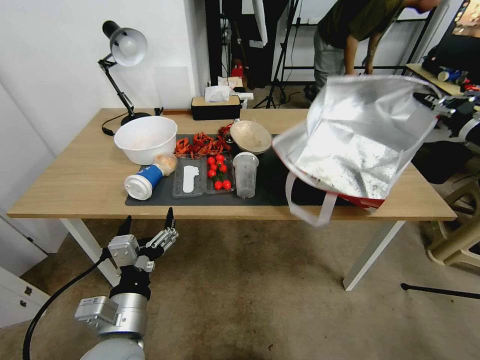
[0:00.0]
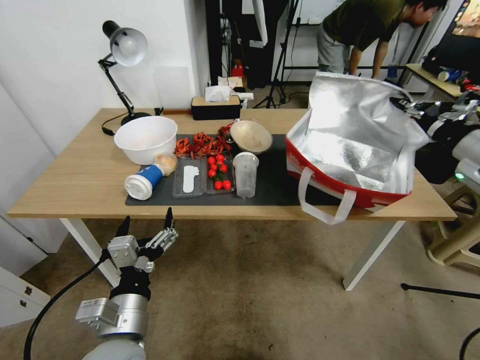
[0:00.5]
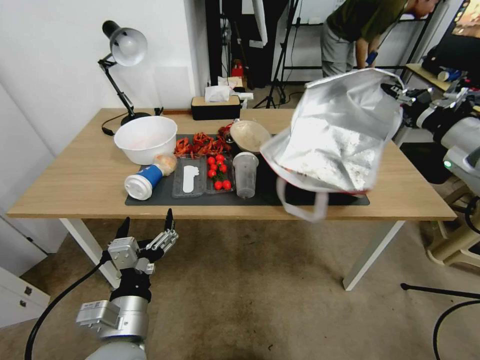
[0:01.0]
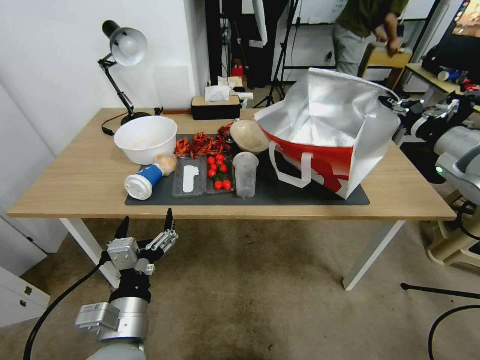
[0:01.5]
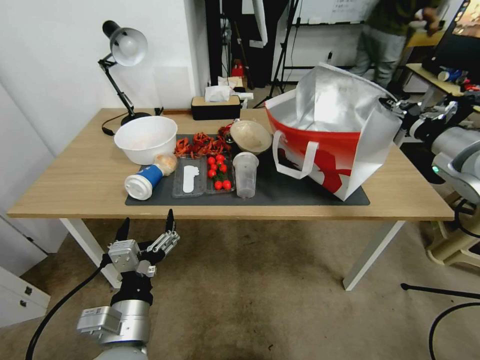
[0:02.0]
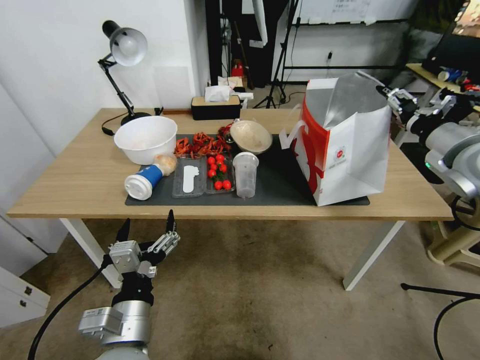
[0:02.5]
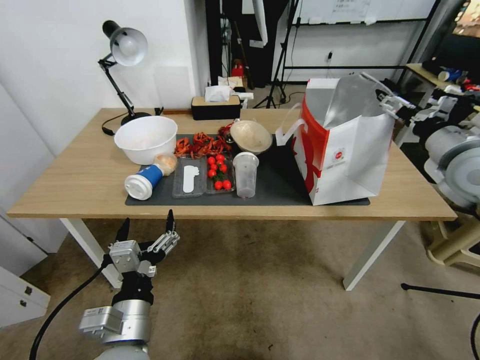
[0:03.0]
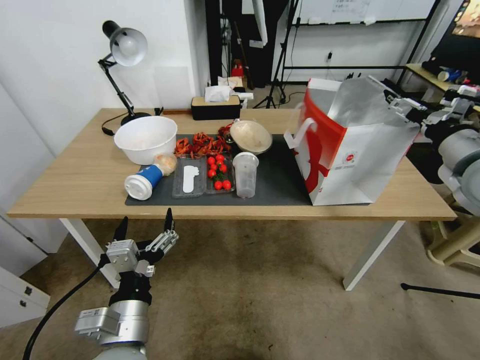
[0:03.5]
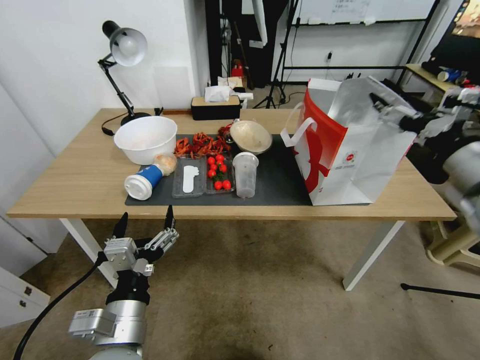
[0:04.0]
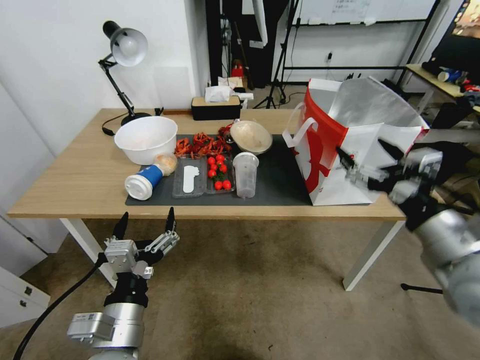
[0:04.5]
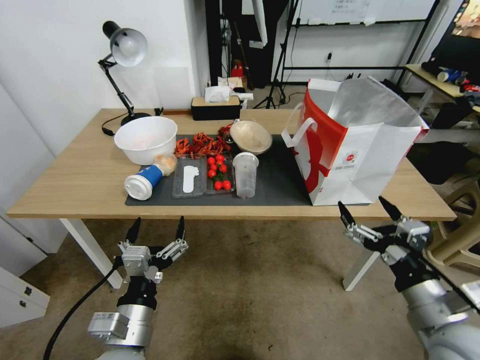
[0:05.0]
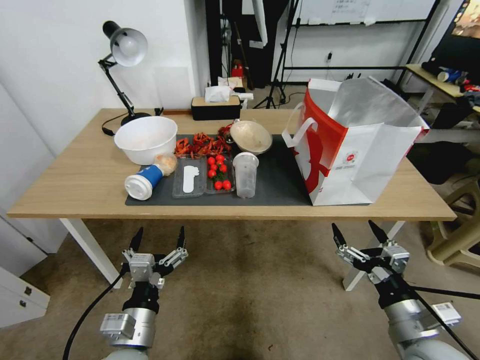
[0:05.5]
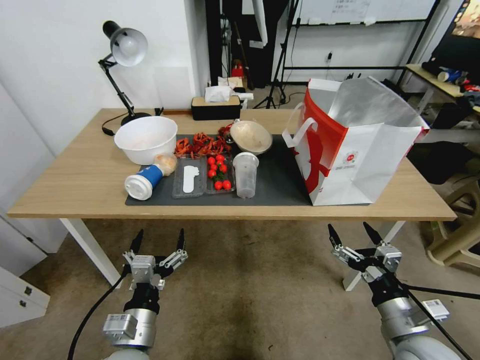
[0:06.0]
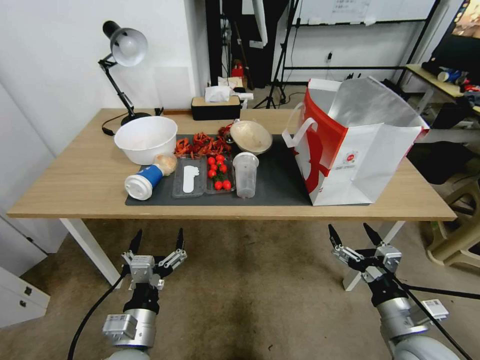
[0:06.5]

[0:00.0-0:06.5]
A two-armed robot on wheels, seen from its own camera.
Task of the whole recording: Pick up the food delivery bag from the floor and place it on the table.
0:00.0 to 0:02.0: The right gripper is displaced forward by some 5 cm.
0:02.0 to 0:04.5: The right gripper heads backward and to the left, covering roughly 20 cm, and opens its fingers.
0:04.5 to 0:06.5: The right gripper heads downward, covering roughly 20 cm. Meanwhile the left gripper goes about 10 cm downward.

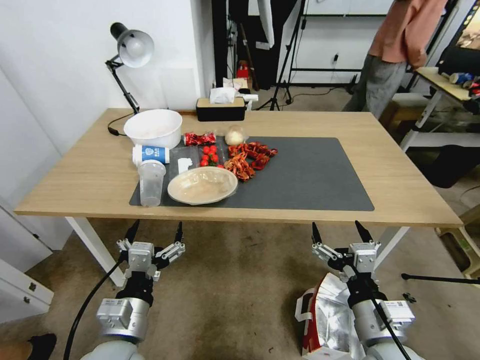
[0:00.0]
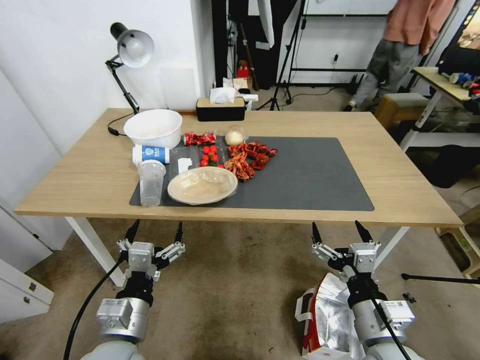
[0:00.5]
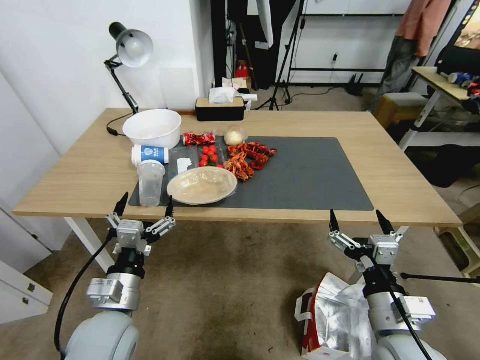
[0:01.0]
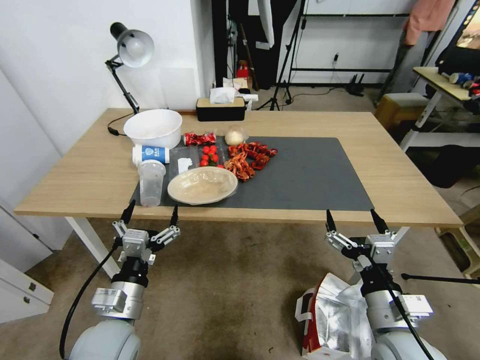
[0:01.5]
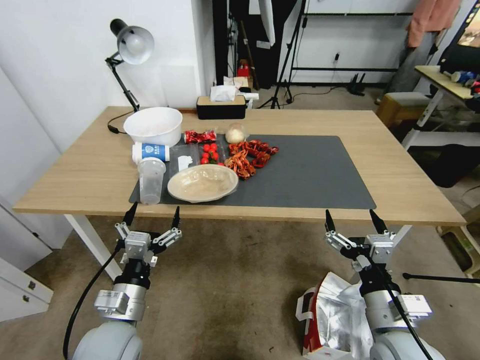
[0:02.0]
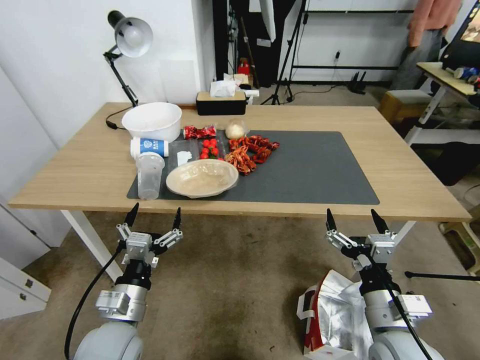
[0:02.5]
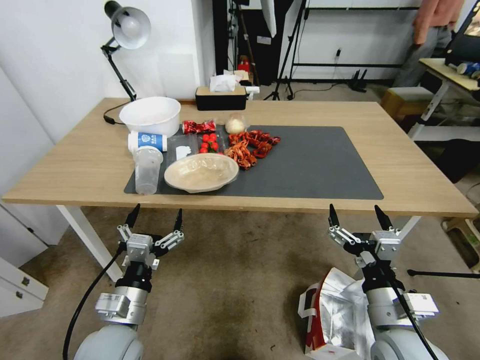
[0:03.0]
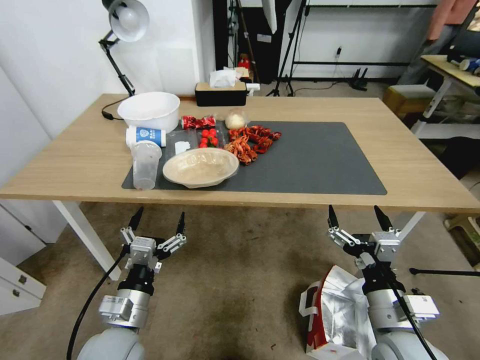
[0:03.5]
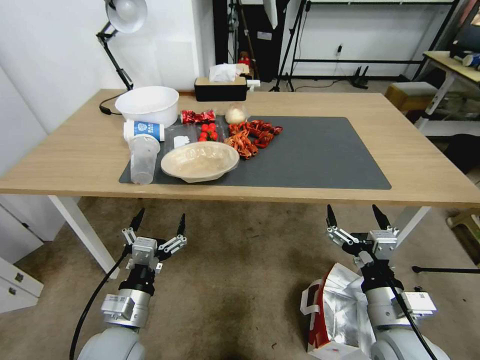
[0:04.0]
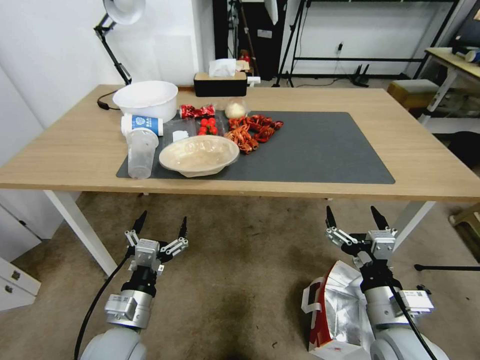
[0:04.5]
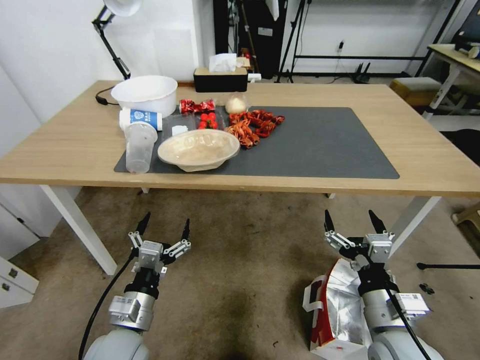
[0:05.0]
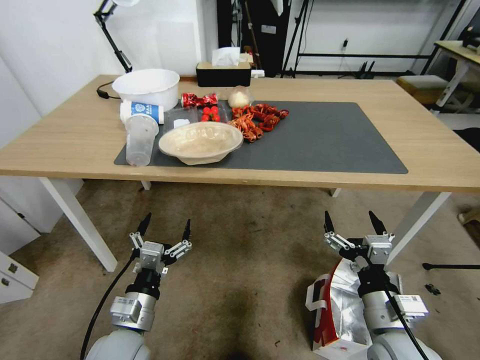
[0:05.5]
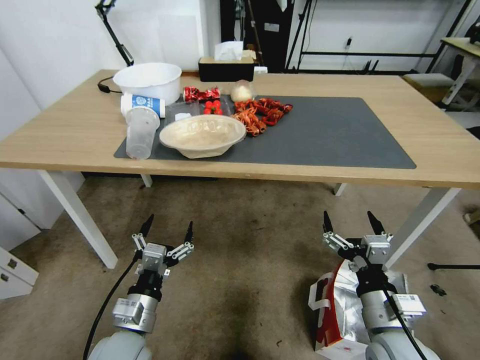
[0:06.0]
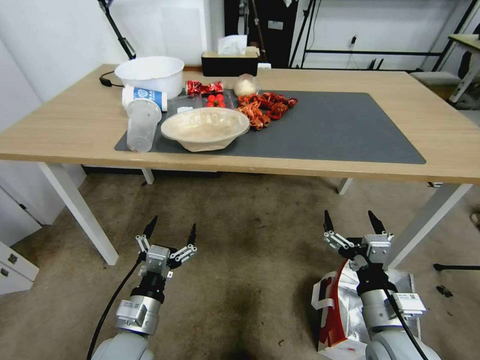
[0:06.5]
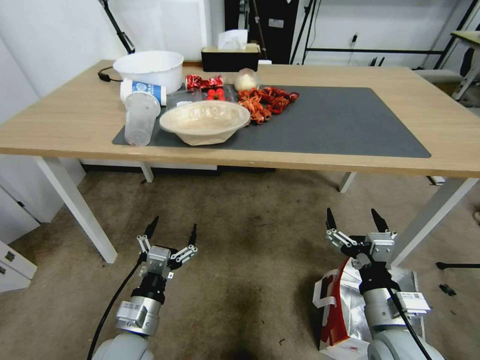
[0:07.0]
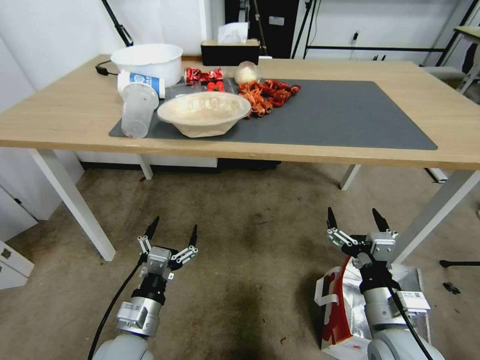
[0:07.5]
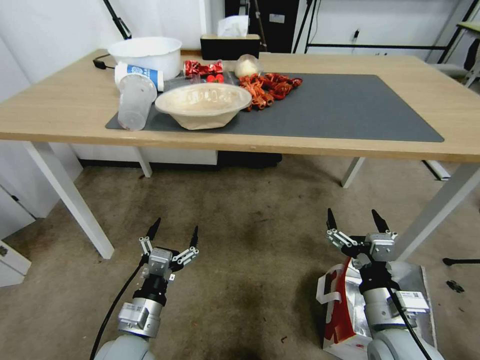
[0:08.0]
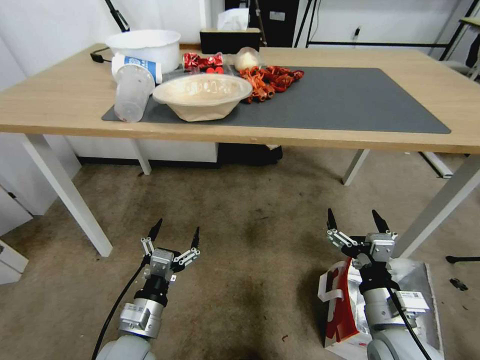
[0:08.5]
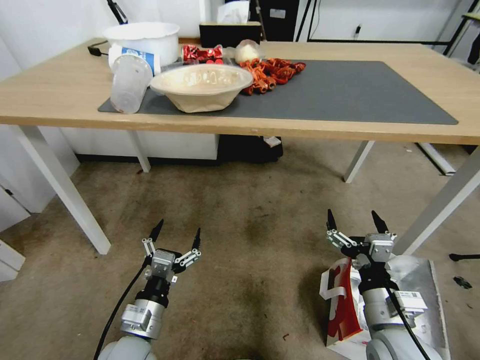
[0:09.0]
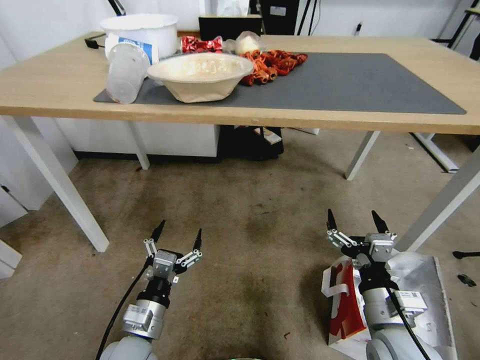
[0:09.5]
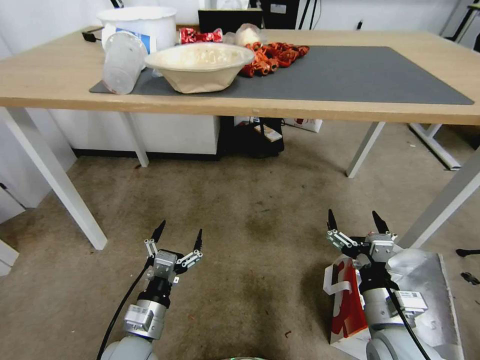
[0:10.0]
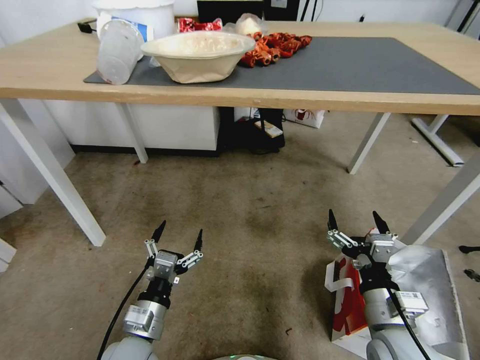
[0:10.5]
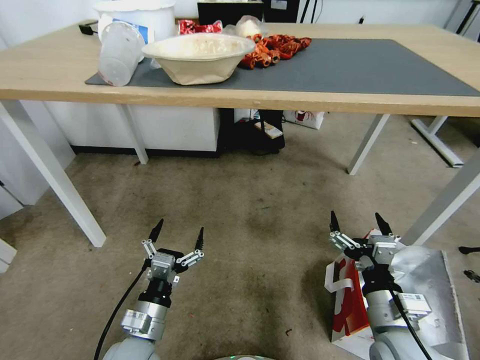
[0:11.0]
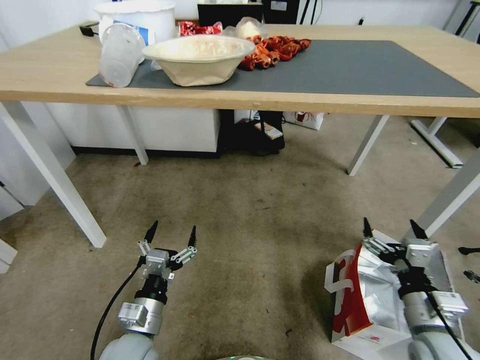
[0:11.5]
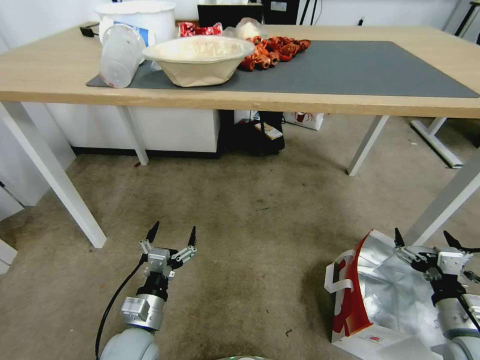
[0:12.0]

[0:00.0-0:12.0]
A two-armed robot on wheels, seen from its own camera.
Task of the whole recording: Pick up the food delivery bag from the floor and place it on the table.
0:10.0 to 0:12.0: The right gripper is displaced to the right by about 10 cm.

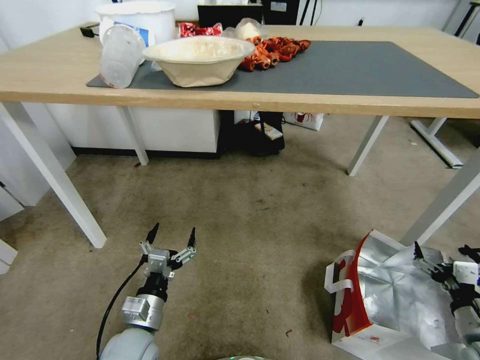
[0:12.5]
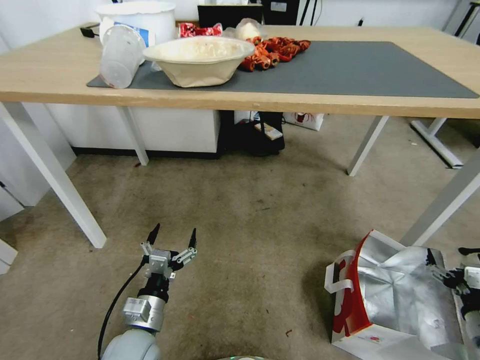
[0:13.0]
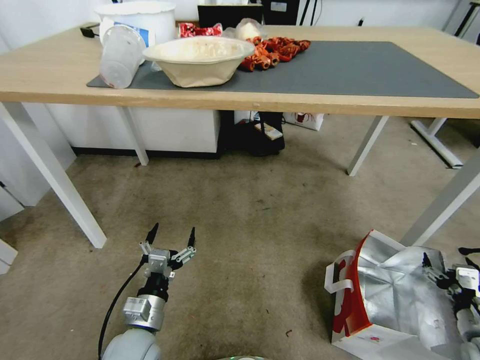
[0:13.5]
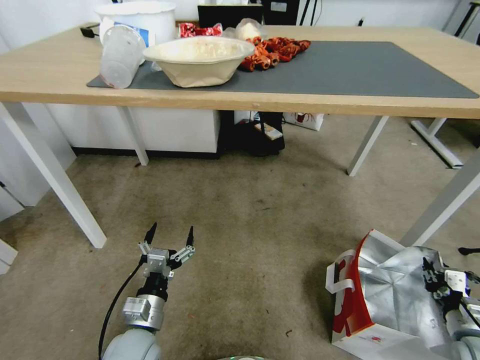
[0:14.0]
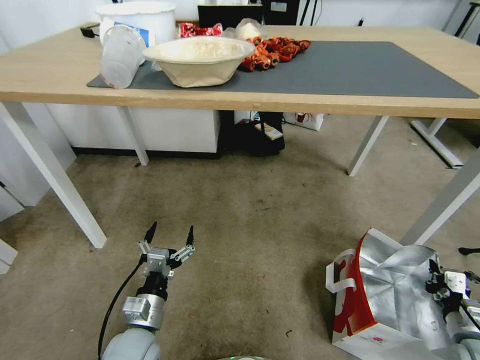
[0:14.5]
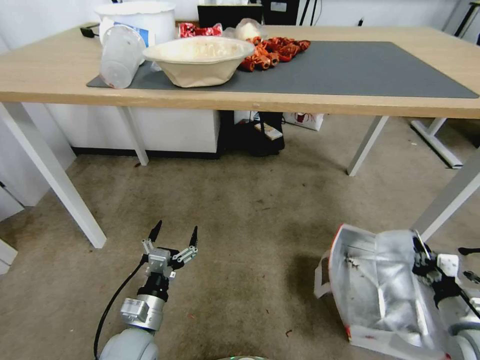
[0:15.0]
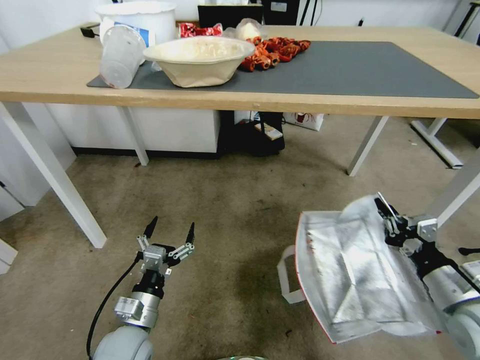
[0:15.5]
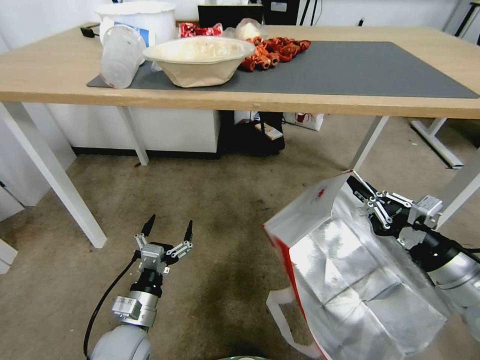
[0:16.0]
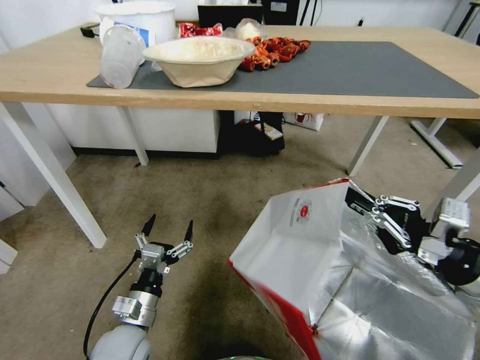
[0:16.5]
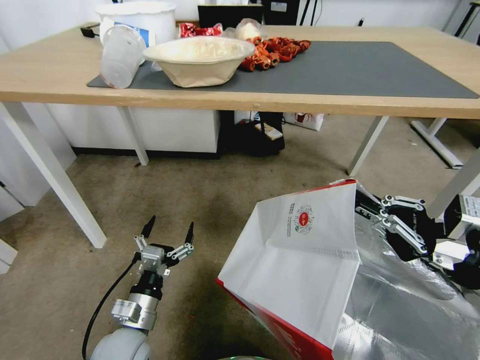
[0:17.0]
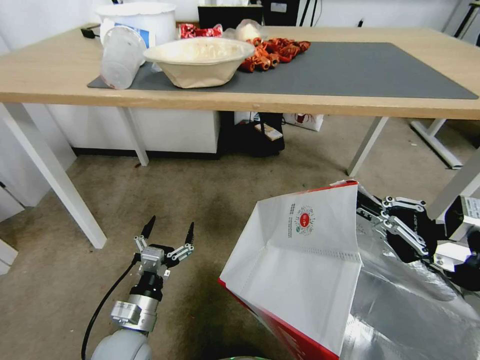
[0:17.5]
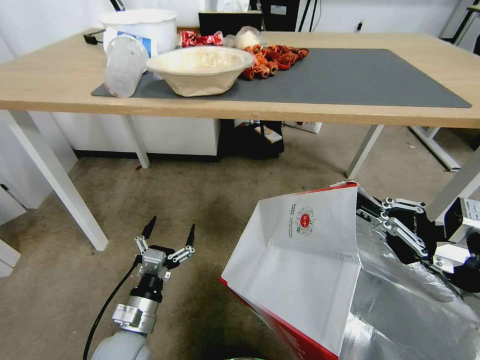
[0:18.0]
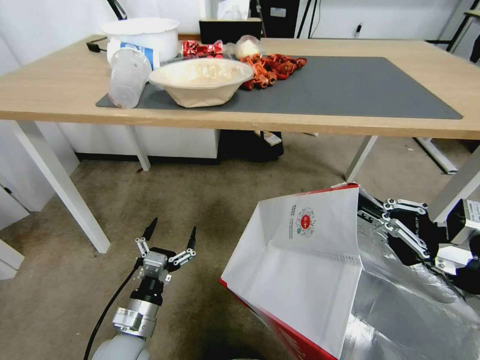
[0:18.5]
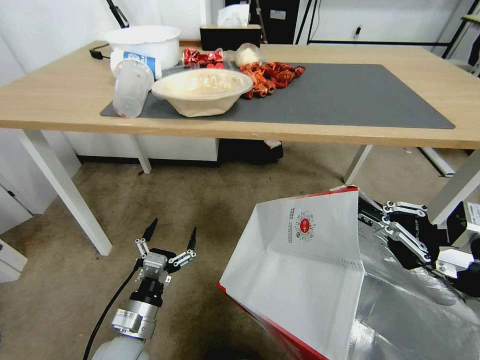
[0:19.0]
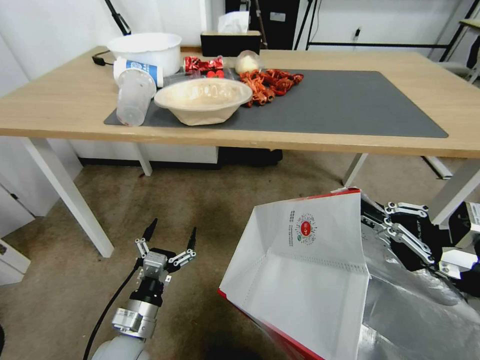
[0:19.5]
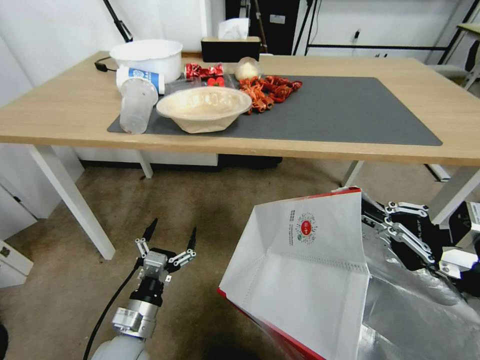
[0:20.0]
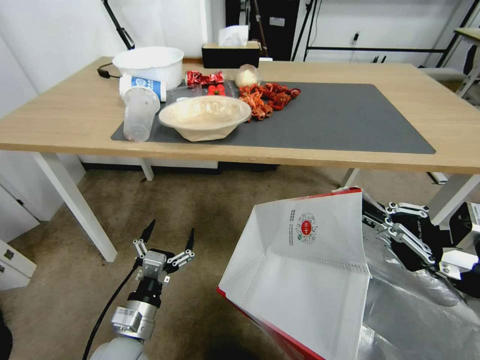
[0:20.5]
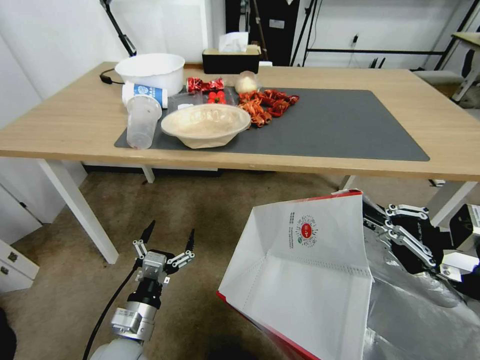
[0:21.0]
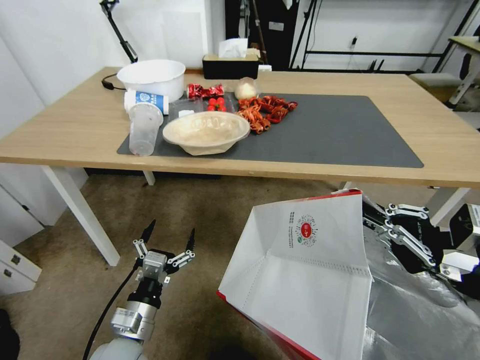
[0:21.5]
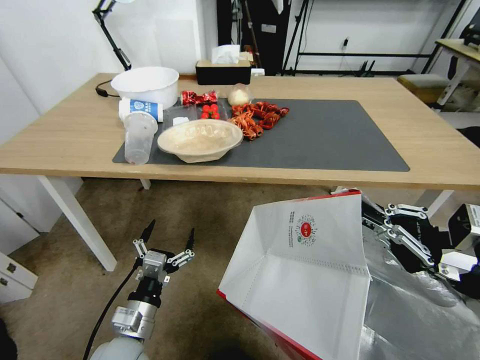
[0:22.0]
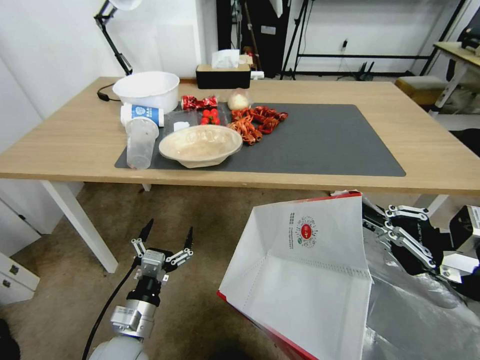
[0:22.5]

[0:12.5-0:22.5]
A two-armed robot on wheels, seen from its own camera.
Task of the whole recording: Pick up the food delivery bag from the floor and place it on the table.
0:12.5 to 0:14.5: The right gripper heads downward, covering about 5 cm, and closes.
0:14.5 to 0:16.5: The right gripper travels upward by some 25 cm.
